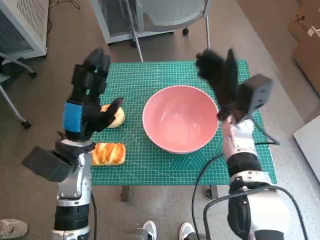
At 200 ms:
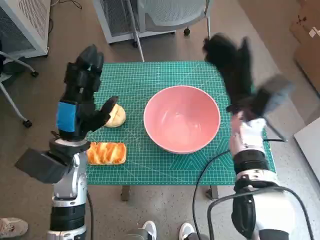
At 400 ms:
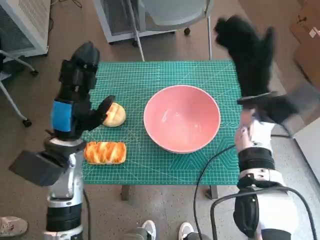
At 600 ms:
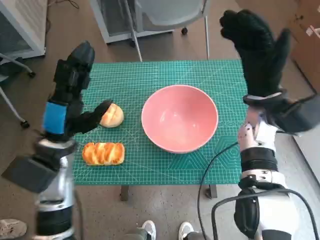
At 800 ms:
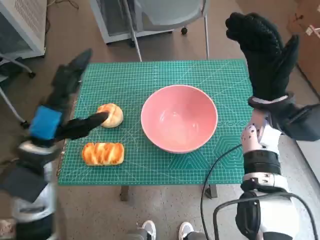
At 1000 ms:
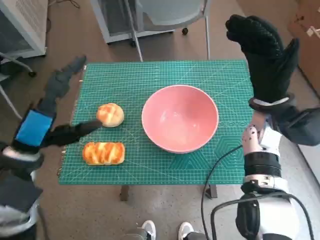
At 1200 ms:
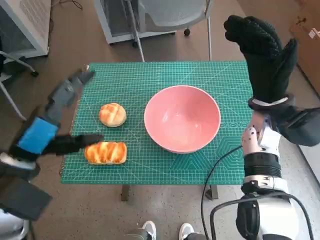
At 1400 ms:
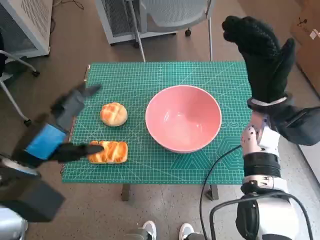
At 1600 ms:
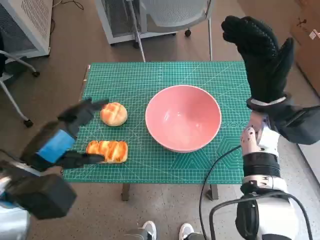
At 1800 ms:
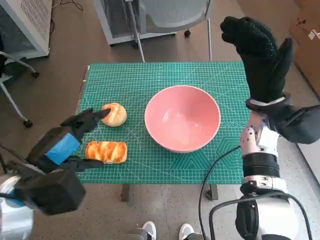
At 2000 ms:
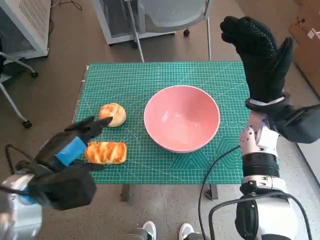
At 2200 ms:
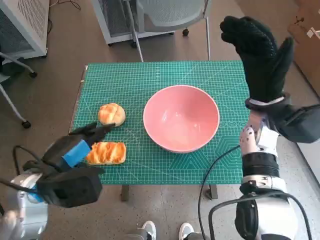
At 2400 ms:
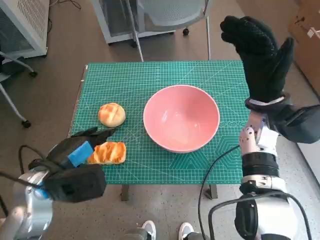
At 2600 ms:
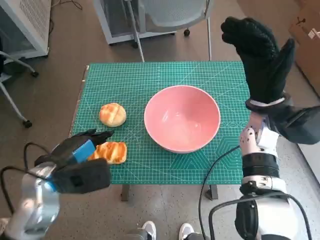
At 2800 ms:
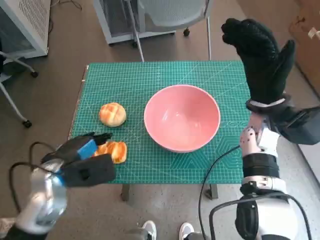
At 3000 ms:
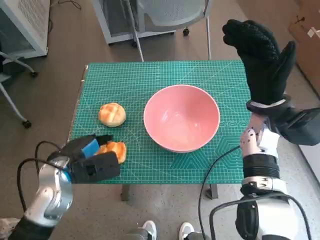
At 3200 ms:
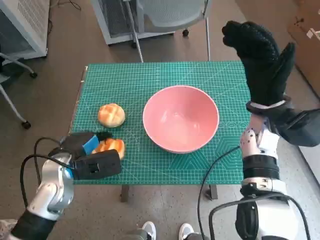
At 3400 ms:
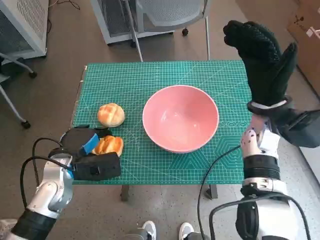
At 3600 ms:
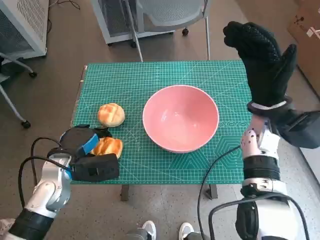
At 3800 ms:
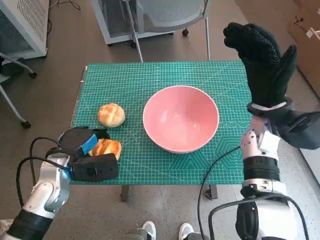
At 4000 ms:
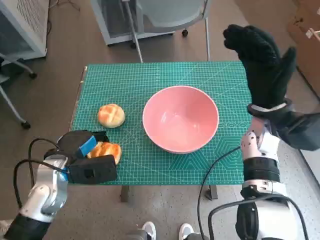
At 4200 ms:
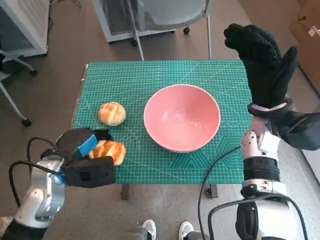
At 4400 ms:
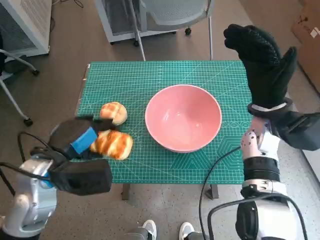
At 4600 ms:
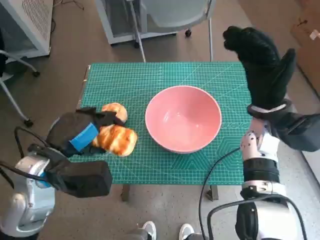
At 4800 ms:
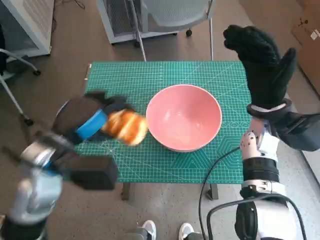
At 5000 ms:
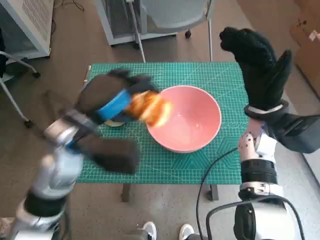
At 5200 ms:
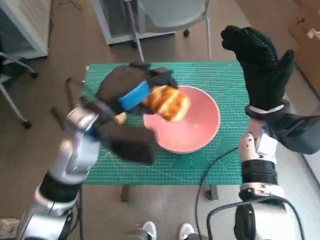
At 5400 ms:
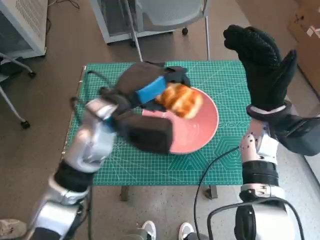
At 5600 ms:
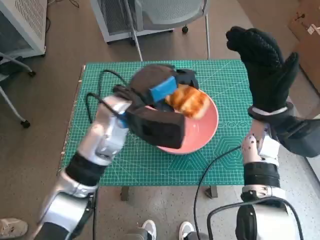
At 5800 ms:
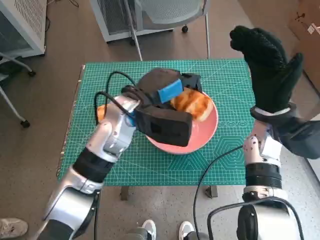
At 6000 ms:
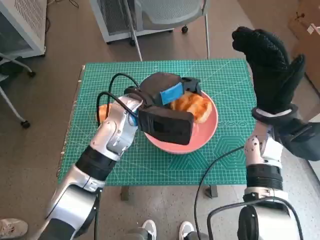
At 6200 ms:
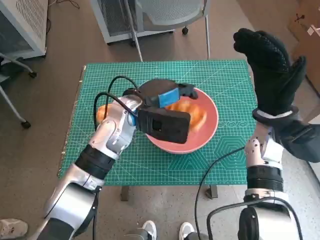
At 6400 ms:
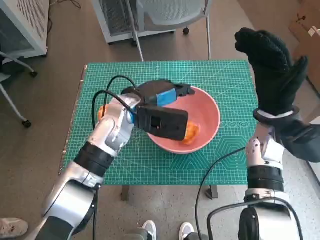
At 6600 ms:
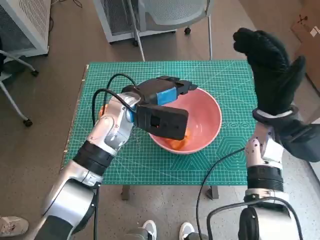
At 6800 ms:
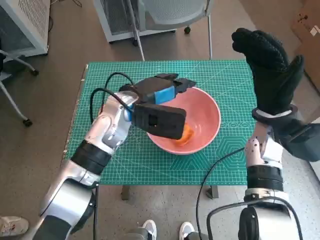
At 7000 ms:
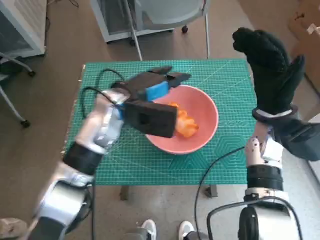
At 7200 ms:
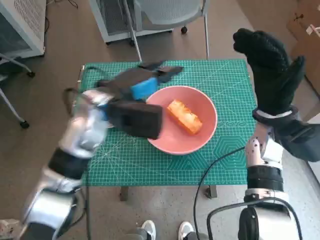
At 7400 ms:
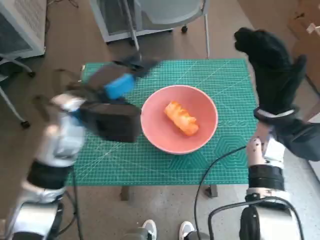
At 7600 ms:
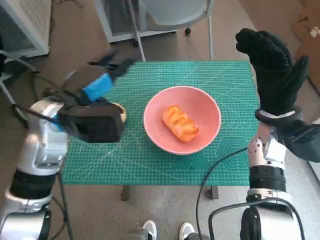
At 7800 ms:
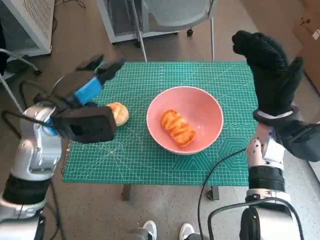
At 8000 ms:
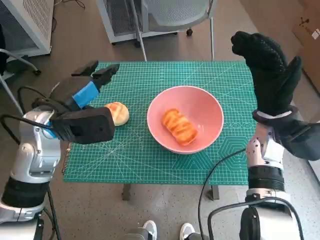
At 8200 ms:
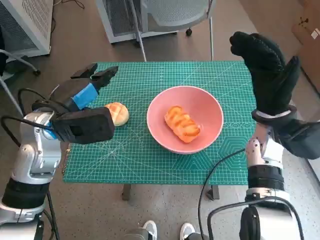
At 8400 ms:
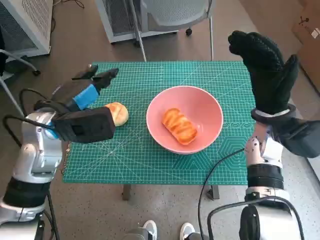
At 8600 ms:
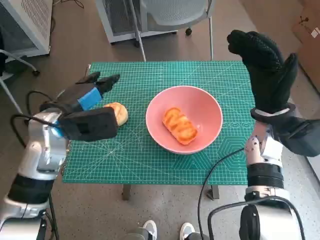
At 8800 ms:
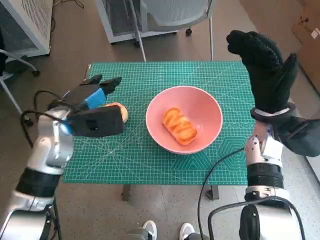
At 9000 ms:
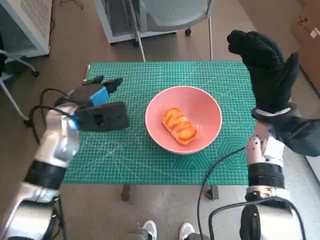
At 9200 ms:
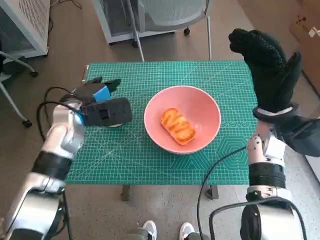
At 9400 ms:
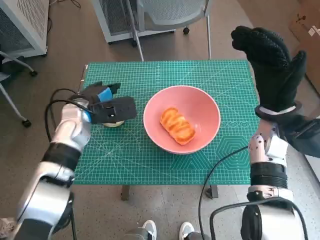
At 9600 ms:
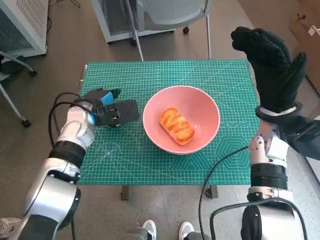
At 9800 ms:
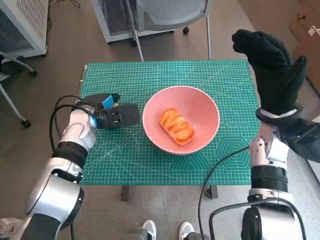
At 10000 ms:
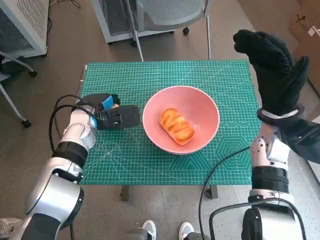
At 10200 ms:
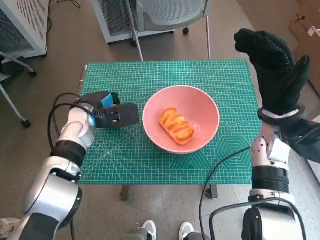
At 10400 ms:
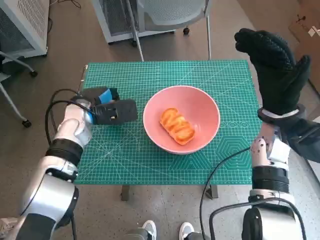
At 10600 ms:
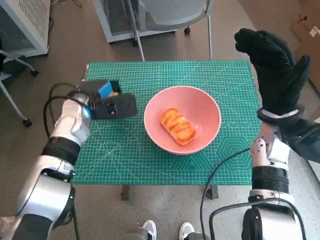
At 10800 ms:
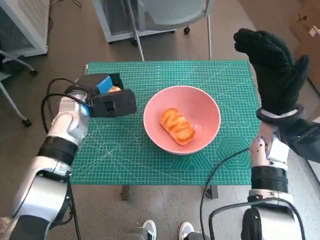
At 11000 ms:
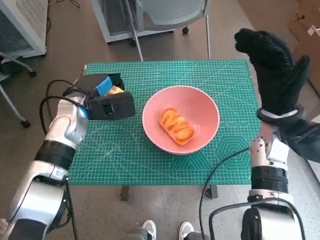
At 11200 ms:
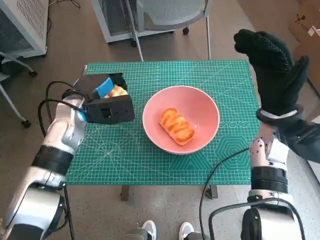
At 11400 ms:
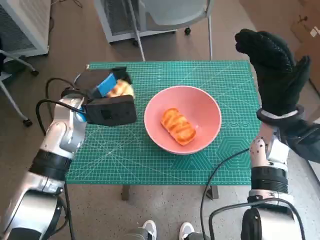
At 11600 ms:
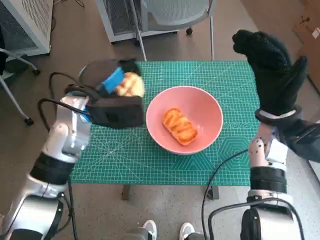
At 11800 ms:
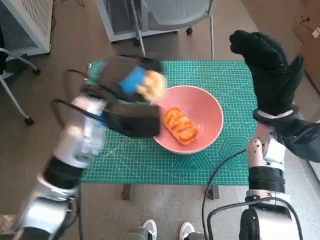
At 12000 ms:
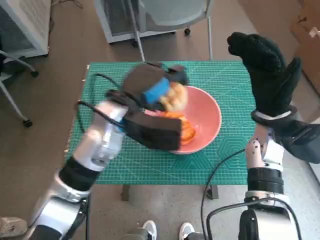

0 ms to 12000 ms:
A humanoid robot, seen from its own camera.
Step, 0 ms to 3200 ms: Grasp the long bread with left hand.
Step, 3400 ms to 7000 ms: Place the long bread in pink bowl with left hand.
Step, 7200 ms to 10200 ms: Grasp the round bread with left hand.
0 ms to 1600 ms: The right hand goes about 5 cm upward, while the left hand goes roughly 10 cm backward and upward.
1600 ms to 3000 ms: The left hand heads downward, covering approximately 10 cm.
4400 ms to 6000 ms: The left hand moves to the right and forward, roughly 20 cm.
6000 ms to 7600 ms: The left hand goes approximately 10 cm to the left.
7600 ms to 9000 ms: The left hand goes about 5 cm downward.
9000 ms to 10400 ms: The left hand changes place by approximately 5 cm.
10400 ms to 12000 ms: The left hand shifts approximately 15 cm to the right and upward.

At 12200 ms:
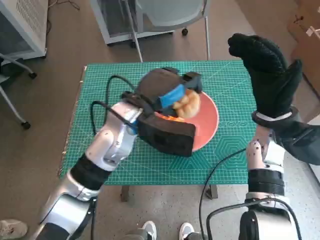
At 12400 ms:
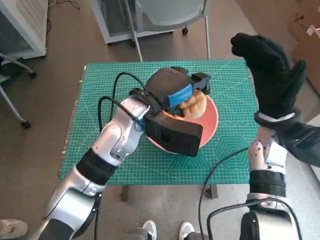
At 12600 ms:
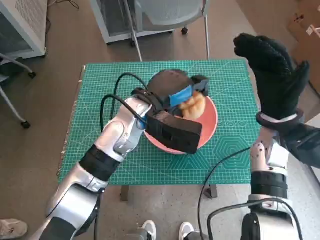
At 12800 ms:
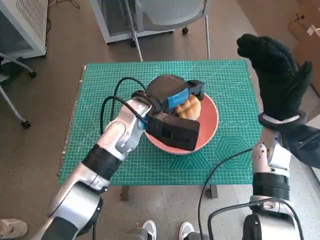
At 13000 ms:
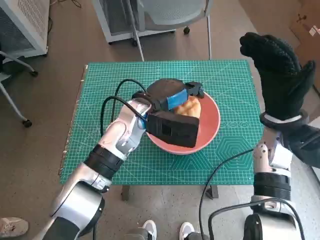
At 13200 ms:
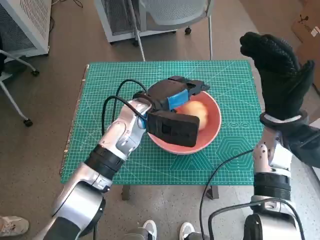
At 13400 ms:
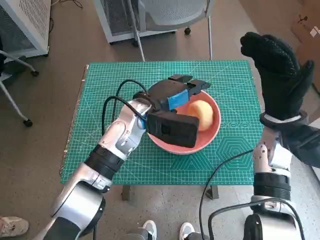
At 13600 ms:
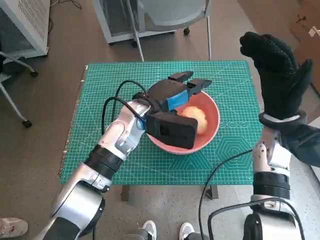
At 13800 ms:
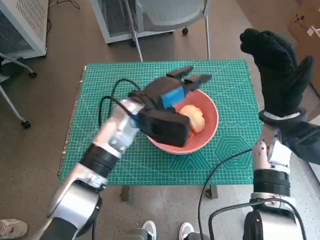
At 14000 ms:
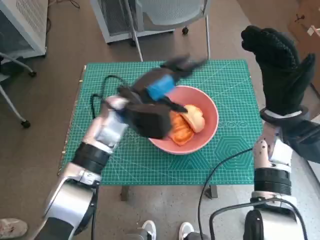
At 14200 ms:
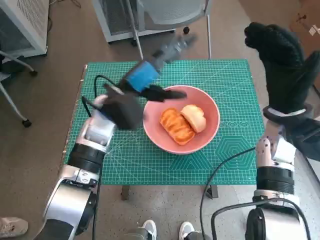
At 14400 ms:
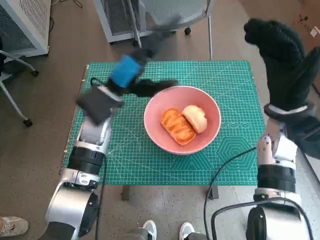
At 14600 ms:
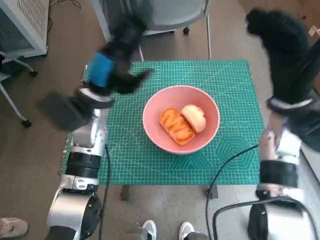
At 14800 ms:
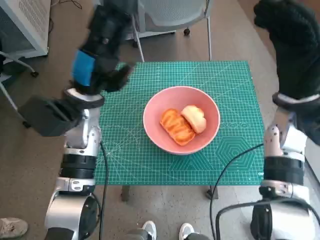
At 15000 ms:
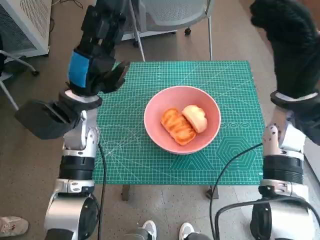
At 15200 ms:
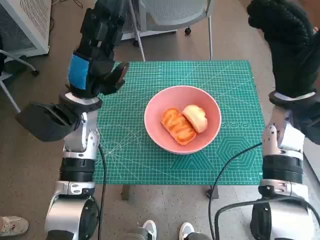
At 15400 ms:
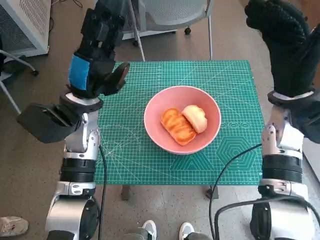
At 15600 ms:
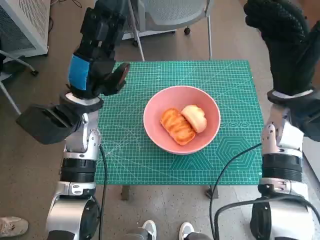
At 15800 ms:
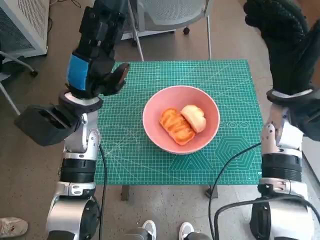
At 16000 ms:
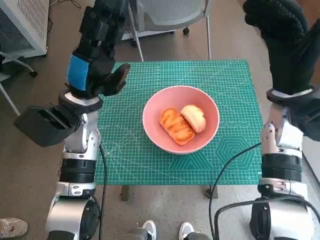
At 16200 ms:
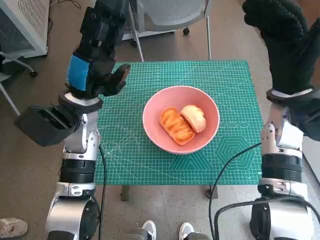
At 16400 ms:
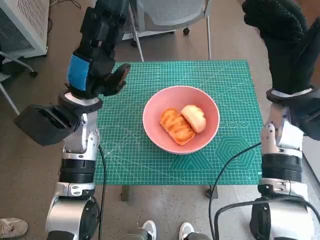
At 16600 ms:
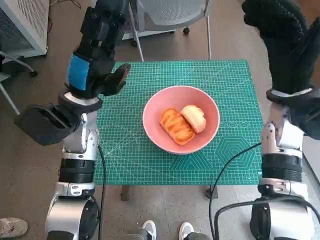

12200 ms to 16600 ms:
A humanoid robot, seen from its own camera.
13600 ms to 15200 ms: The left hand travels to the left by roughly 10 cm.
15200 ms to 16600 ms: Neither hand changes place.
